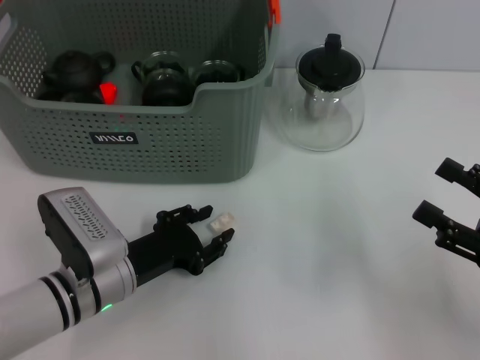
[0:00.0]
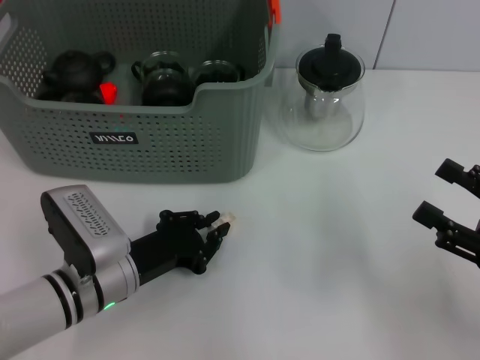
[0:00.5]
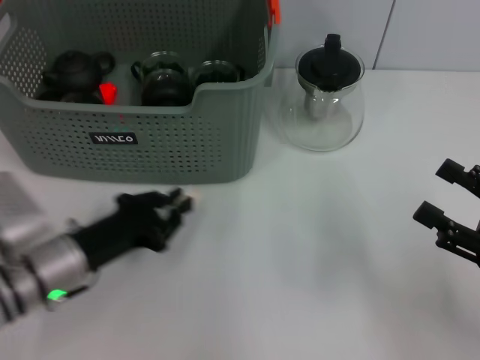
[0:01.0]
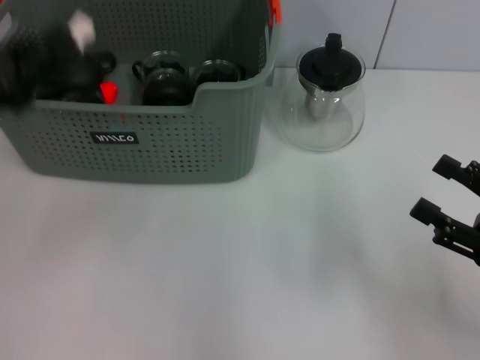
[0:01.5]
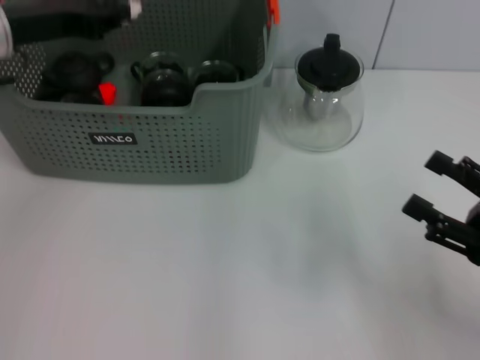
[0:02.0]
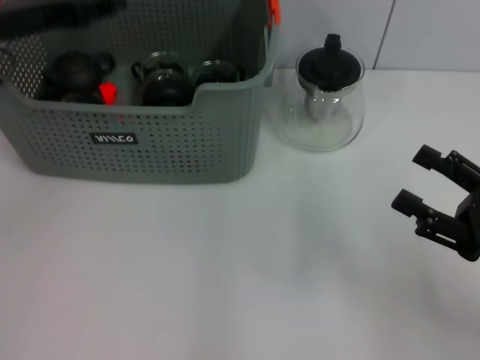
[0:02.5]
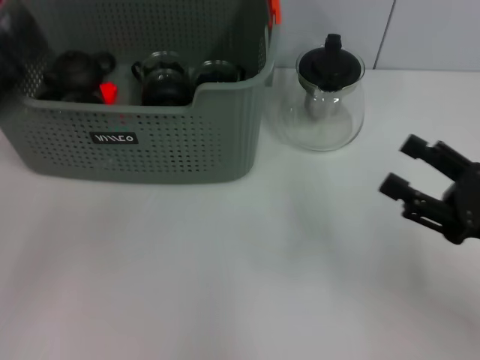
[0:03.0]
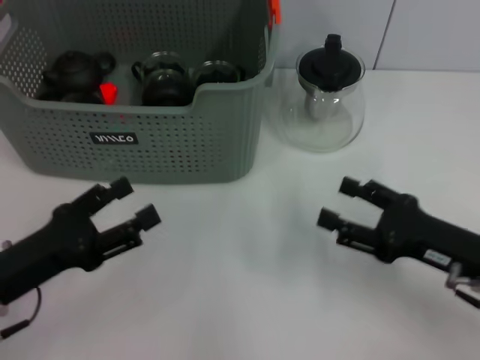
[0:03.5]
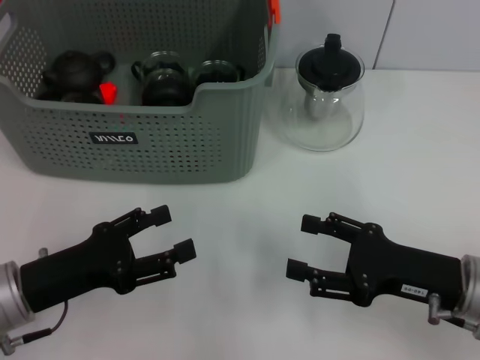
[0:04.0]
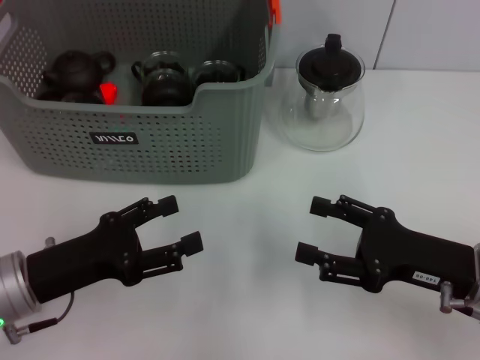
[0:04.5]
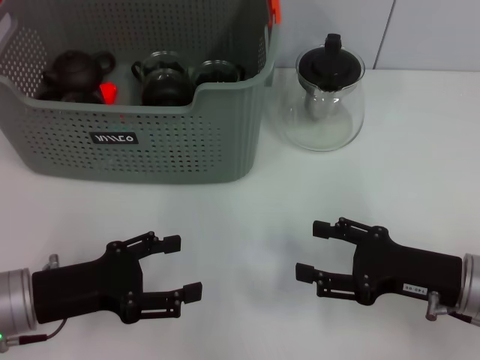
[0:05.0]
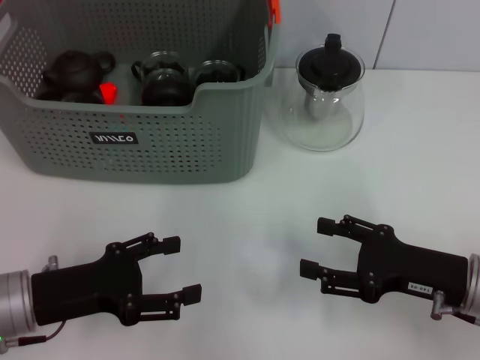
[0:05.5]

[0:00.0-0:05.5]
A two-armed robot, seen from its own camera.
Task of the whole recording: pick up the teacup on the table and place it into the storage bin, pick up the block on the table and place it into the storage bin.
Step, 0:01.0 to 0:02.5: Place the white block in the storage box with left gripper.
0:00.0 to 0:02.0: The left gripper shifts about 25 cm upward, forward and to the left, and closes.
0:02.0 to 0:03.5: The right gripper heads to the left, covering about 5 cm; the left gripper is displaced backward and downward by approximately 25 cm, and opens its fingers.
